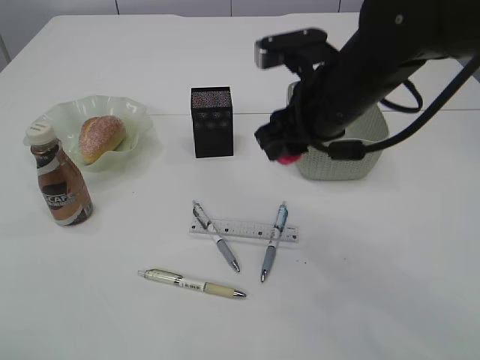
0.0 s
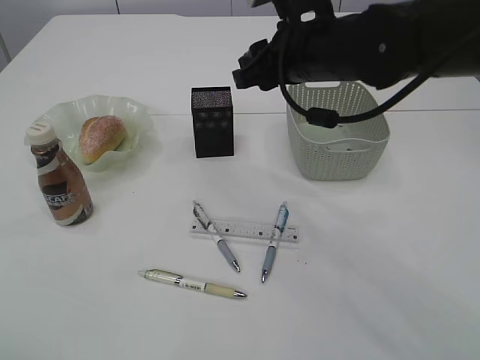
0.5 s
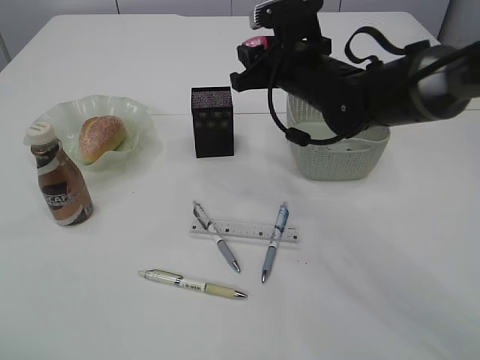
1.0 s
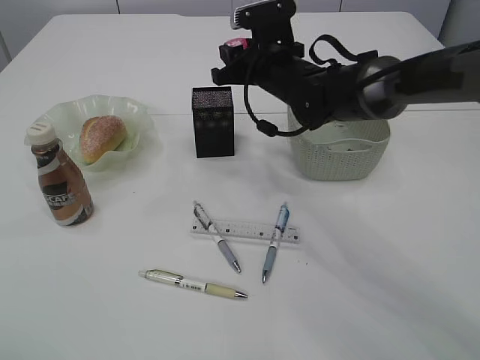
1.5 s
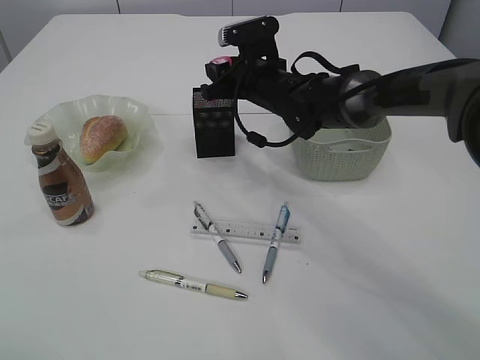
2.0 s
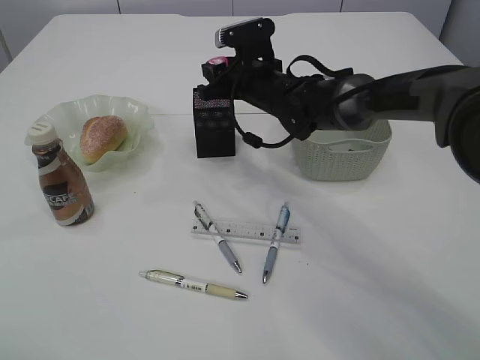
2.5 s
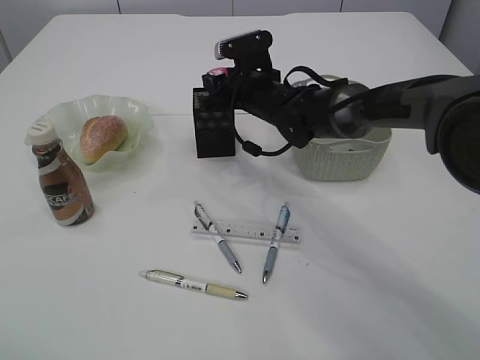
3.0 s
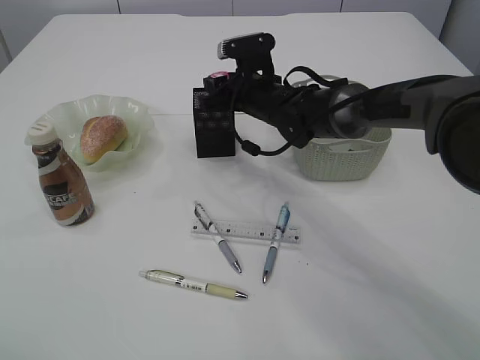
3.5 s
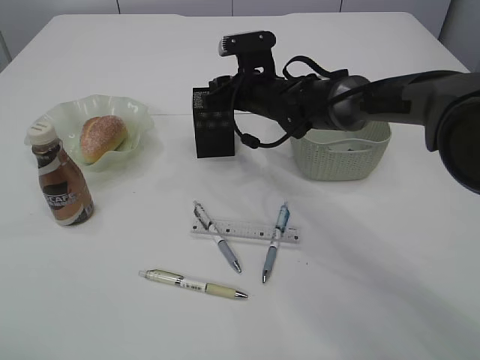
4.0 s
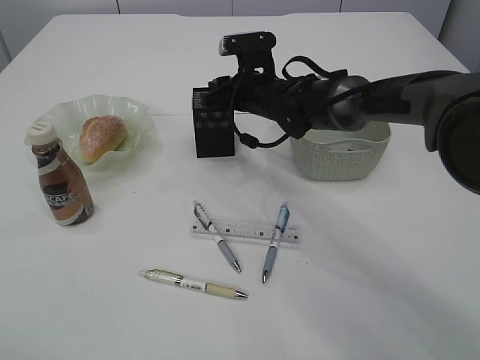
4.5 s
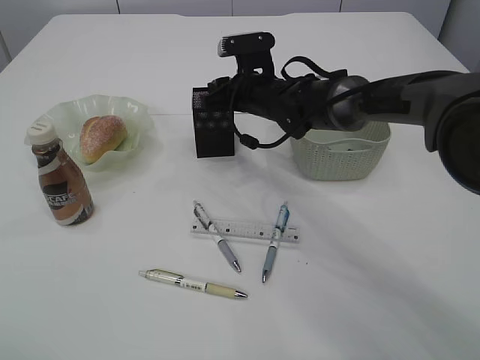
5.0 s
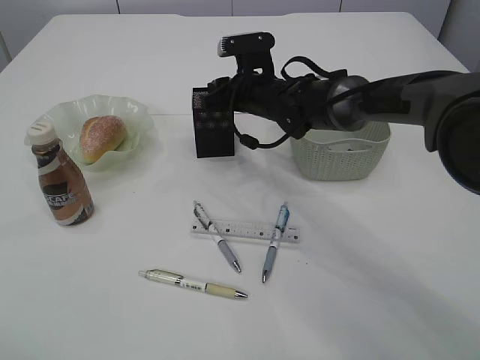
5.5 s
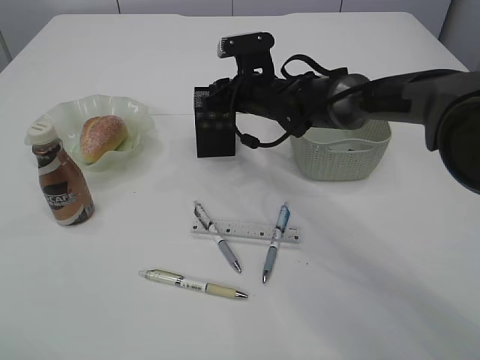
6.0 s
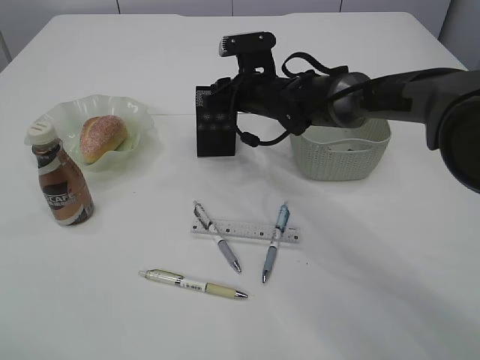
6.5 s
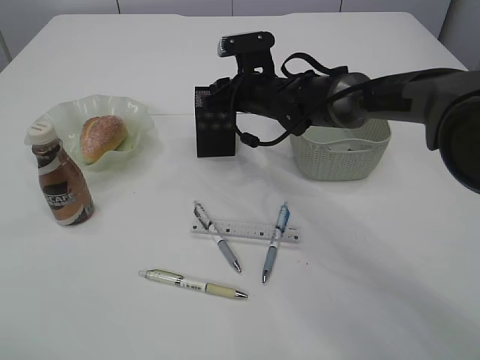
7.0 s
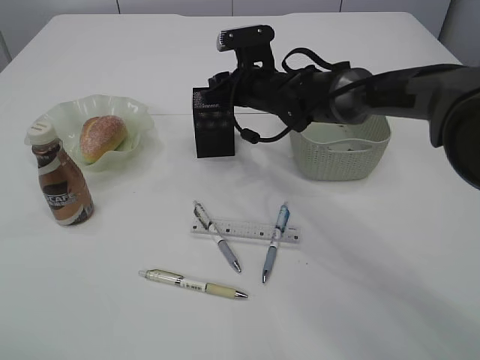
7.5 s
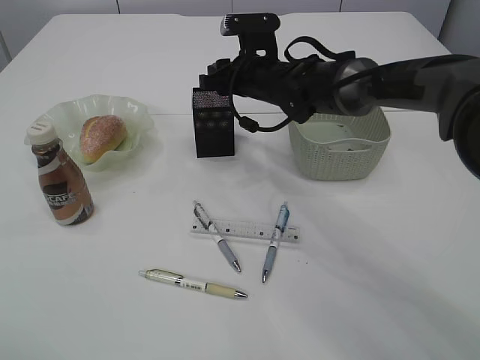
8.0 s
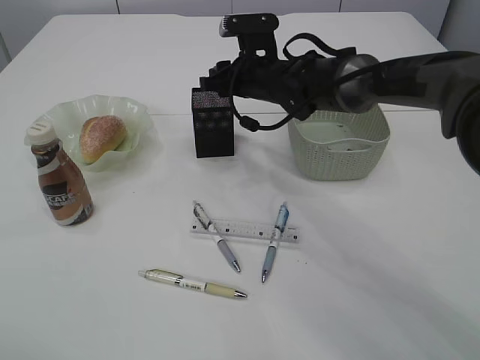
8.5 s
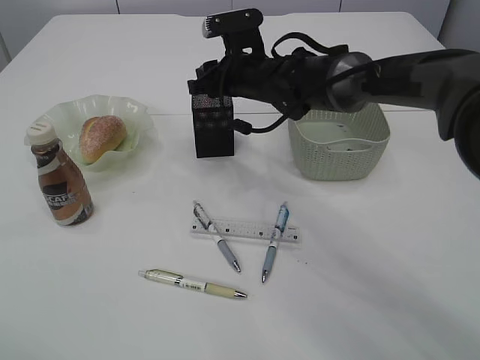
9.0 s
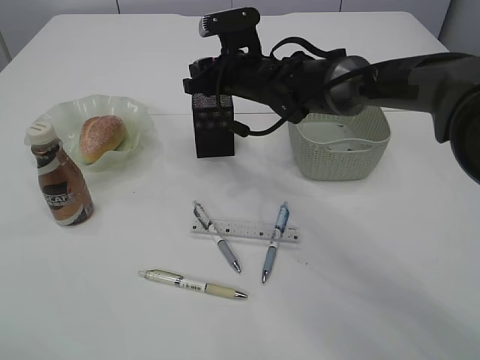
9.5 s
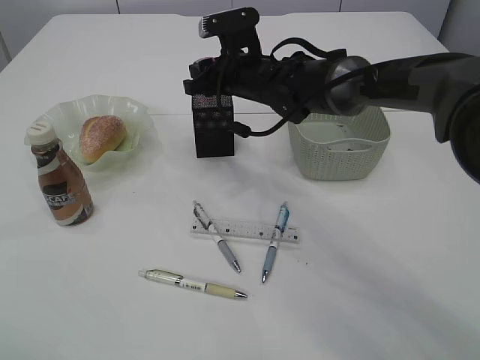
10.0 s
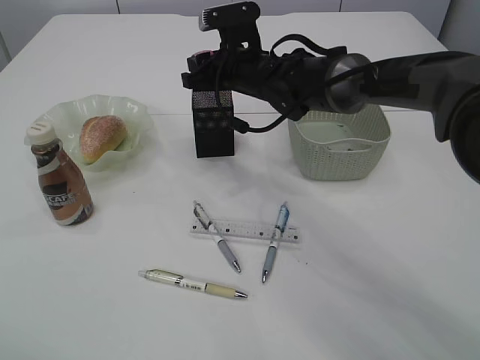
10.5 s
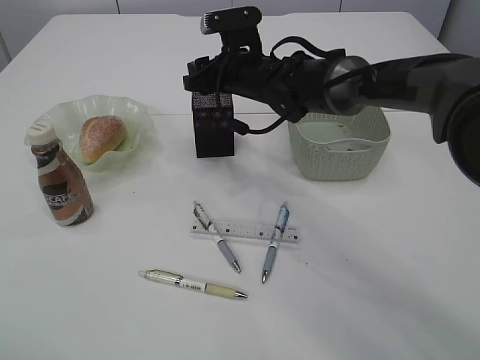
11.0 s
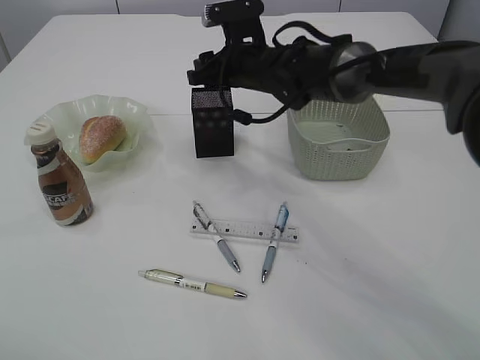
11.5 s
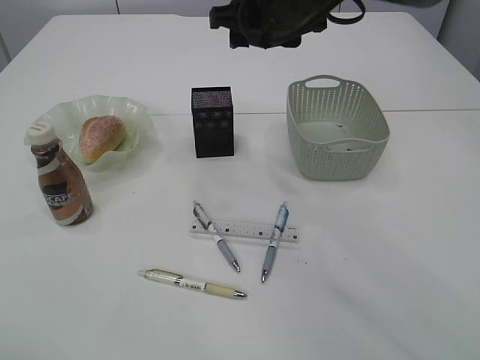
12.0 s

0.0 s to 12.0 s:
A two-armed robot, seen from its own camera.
Step, 0.0 to 7.5 s: Place the red pencil sharpener into the pen holder.
0.0 to 2.0 s: The right gripper heads forward and downward, covering roughly 20 cm.
2.0 to 4.0 s: There are only small adjustments of the grippers.
4.0 to 6.0 s: Both grippers stay about where they are.
6.0 to 10.0 s: There are only small adjustments of the grippers.
10.0 to 12.0 s: The right gripper is displaced upward and backward by some 15 cm.

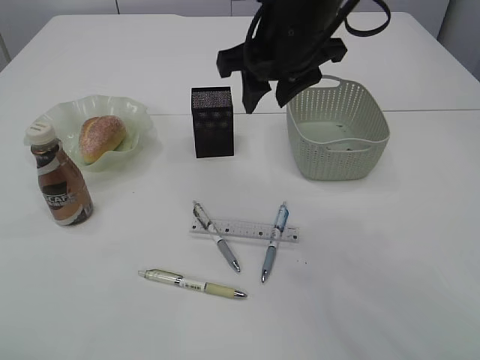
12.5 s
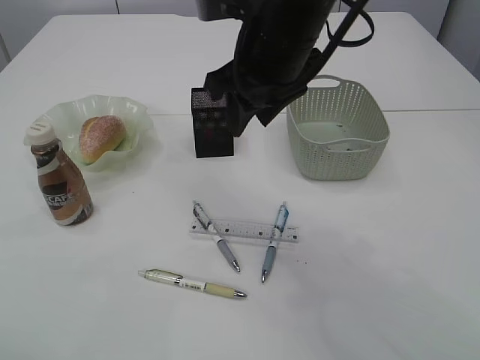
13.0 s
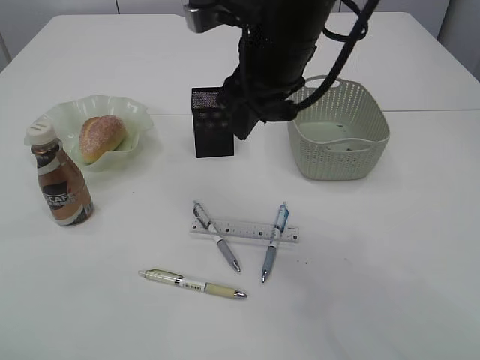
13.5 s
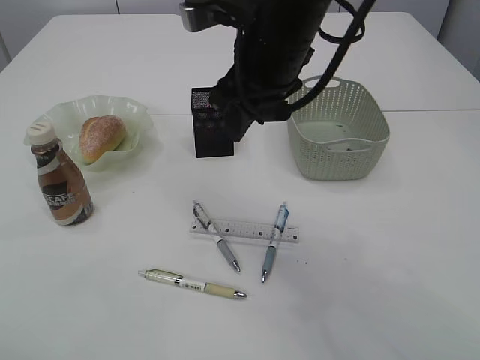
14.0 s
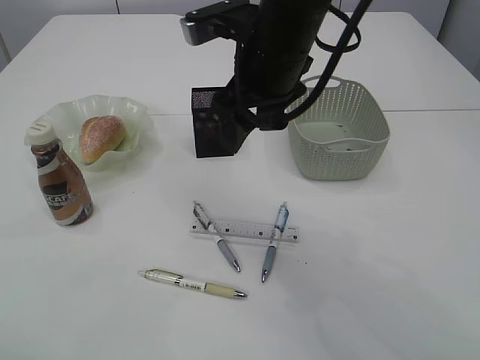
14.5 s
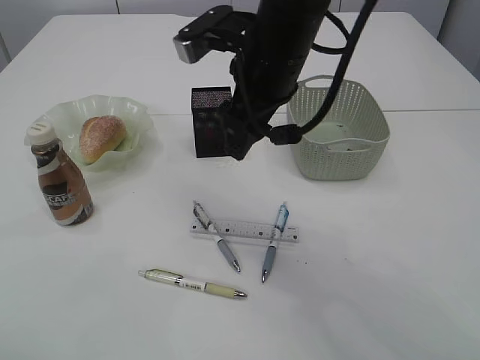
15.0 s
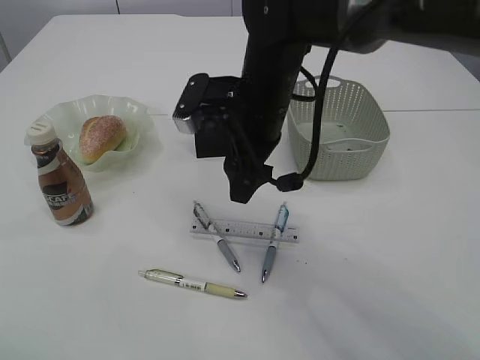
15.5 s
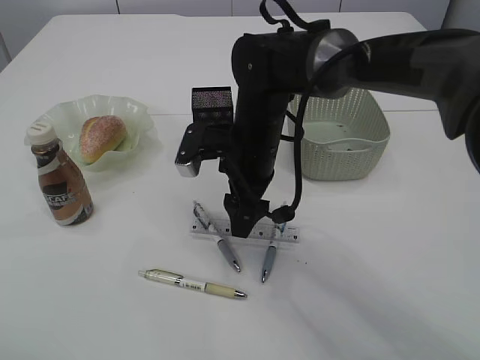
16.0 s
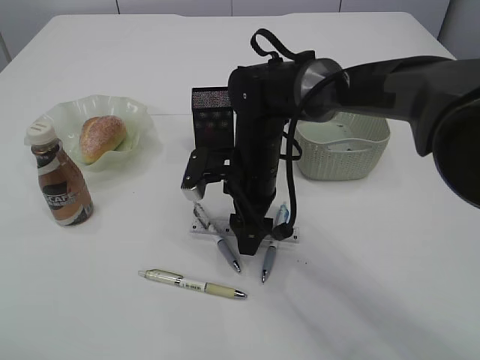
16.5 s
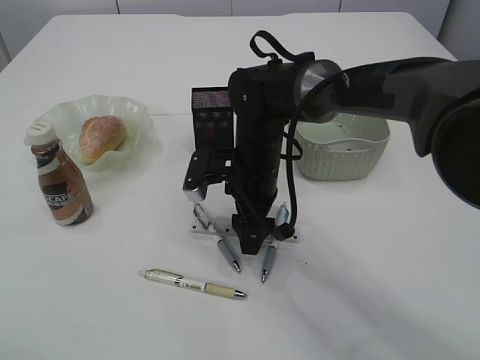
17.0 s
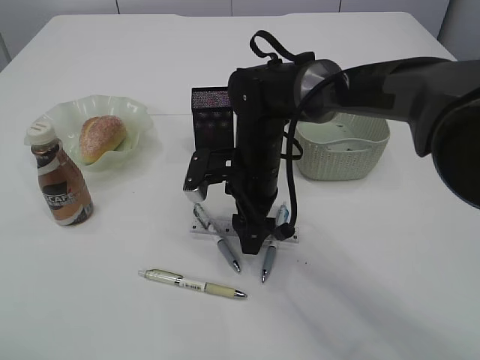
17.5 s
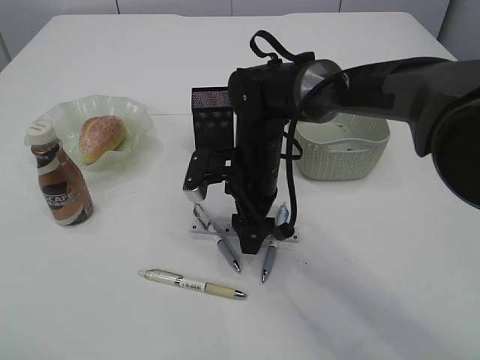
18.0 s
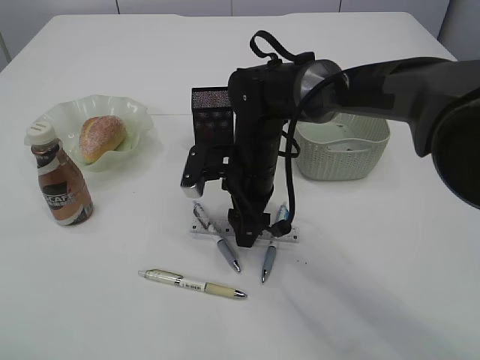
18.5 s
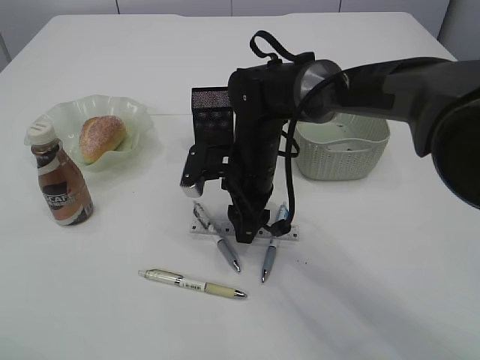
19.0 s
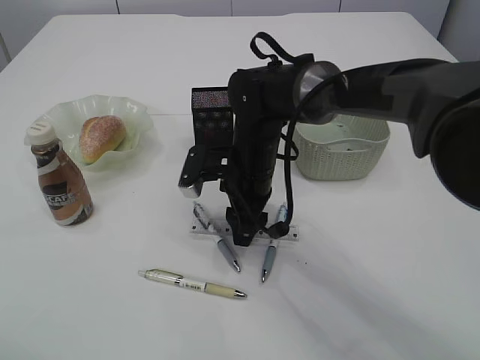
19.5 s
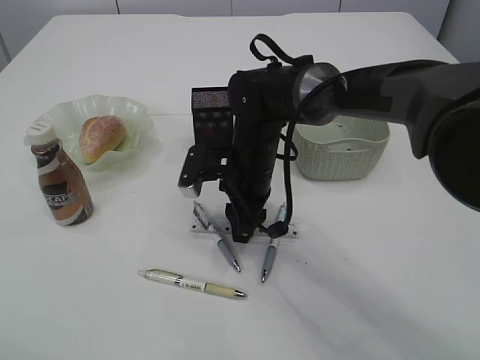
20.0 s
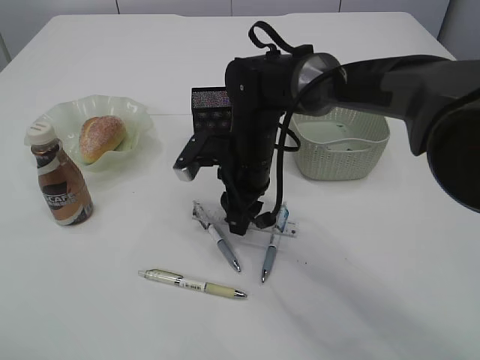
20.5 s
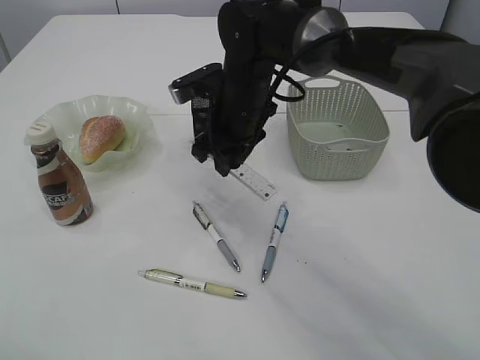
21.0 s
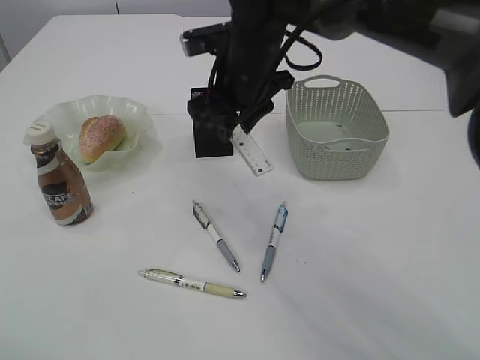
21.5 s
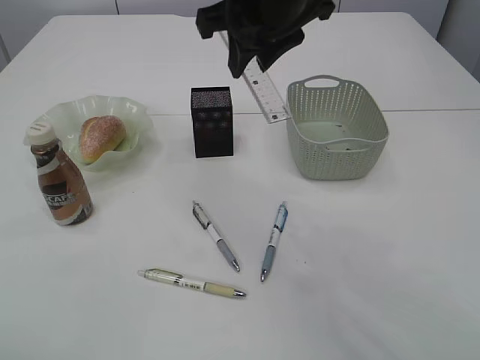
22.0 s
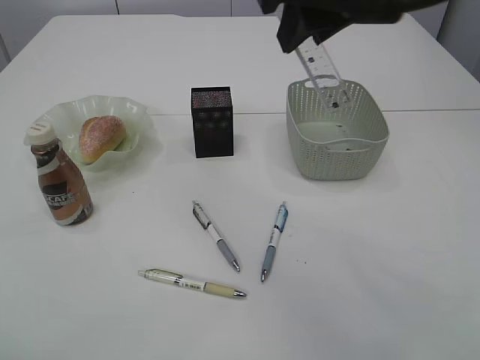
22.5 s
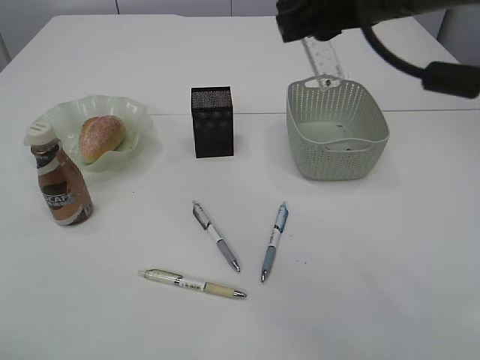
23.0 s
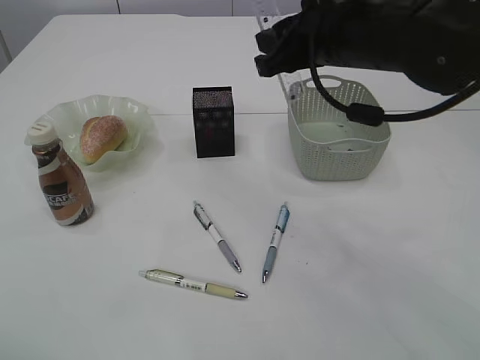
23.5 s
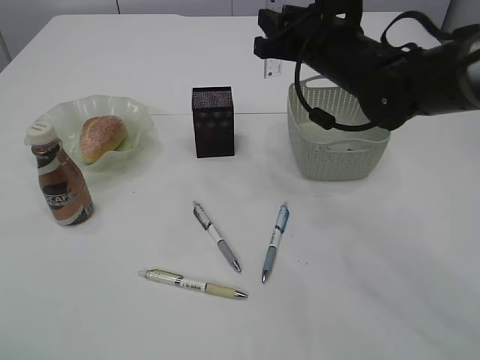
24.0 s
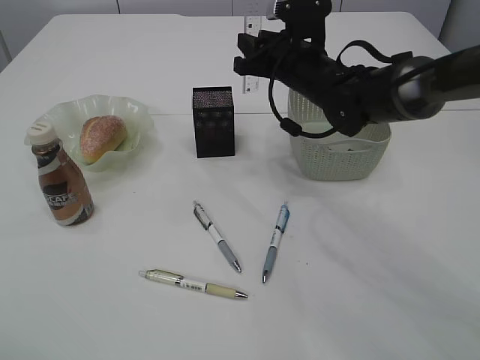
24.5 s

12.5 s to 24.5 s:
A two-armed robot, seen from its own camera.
Step, 12.5 to 20.5 s: pick up the ruler.
14.5 to 16.5 s: The right gripper is displaced downward by about 15 cm.
16.5 to 18.5 s: Neither gripper changes place.
18.5 to 20.5 s: The right gripper closes its fingers.
20.5 to 22.5 s: The right gripper moves upward, some 25 cm.
22.5 to 24.5 s: The right gripper travels downward and forward by some 25 cm.

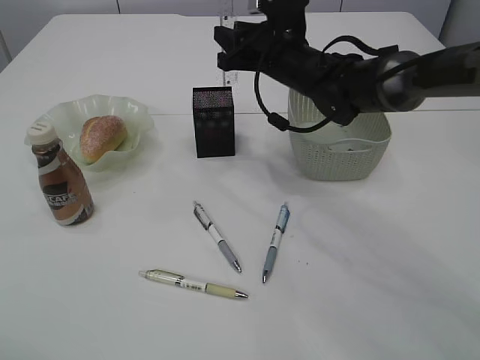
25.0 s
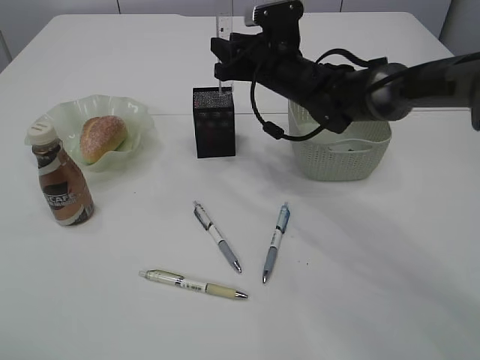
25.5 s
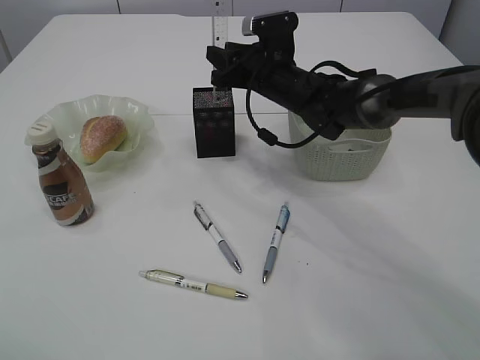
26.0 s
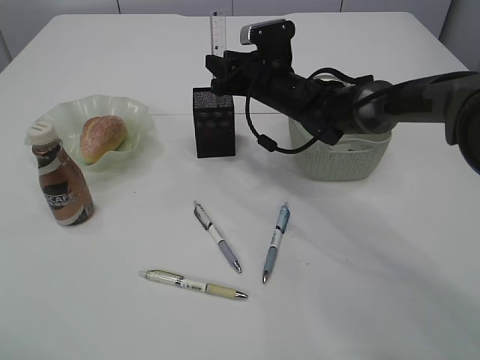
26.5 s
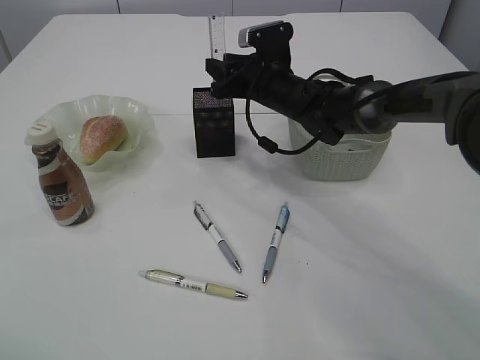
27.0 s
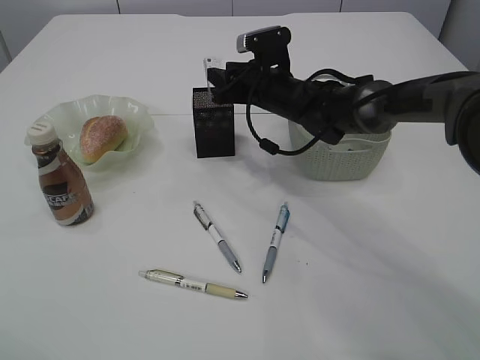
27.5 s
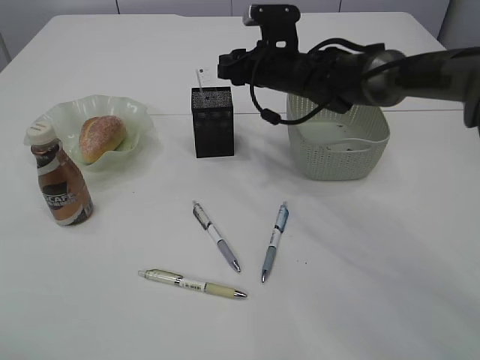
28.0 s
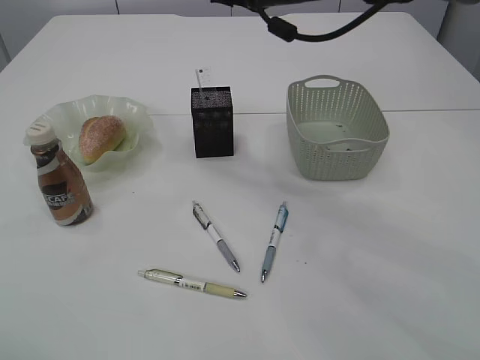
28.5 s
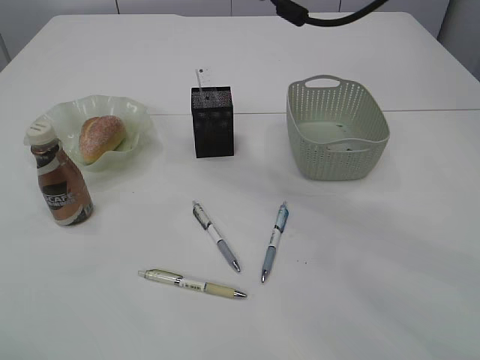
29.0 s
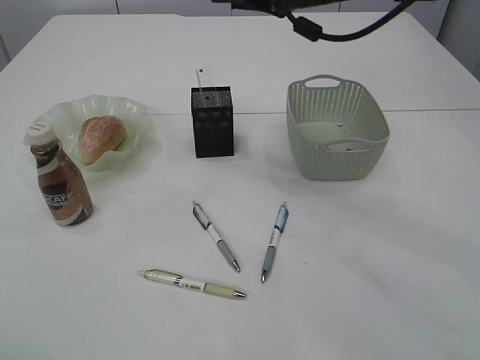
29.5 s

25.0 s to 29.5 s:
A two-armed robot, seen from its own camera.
Step, 25.0 to 28.0 s: Place the ruler into the pen holder.
25.0 to 27.0 s: The right gripper moves downward, some 5 cm.
27.0 to 29.5 s: The right gripper travels upward by approximately 15 cm.
